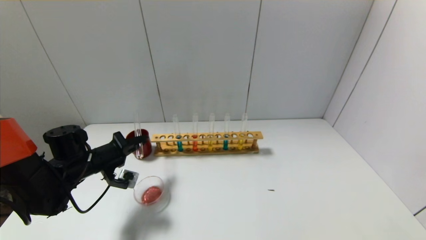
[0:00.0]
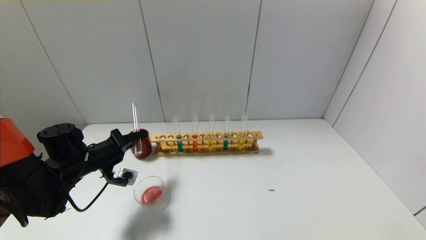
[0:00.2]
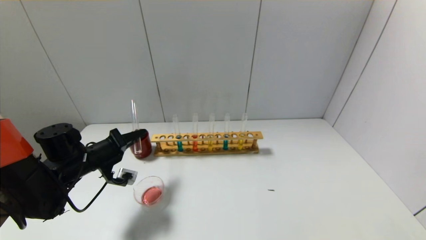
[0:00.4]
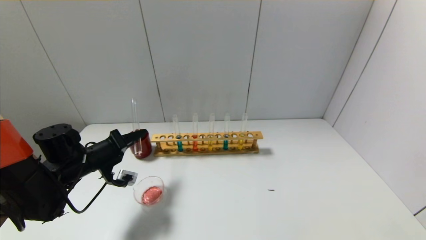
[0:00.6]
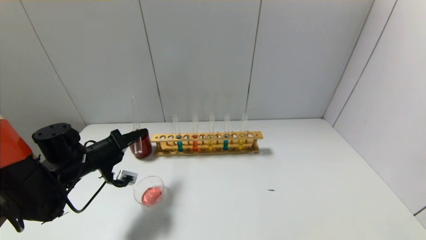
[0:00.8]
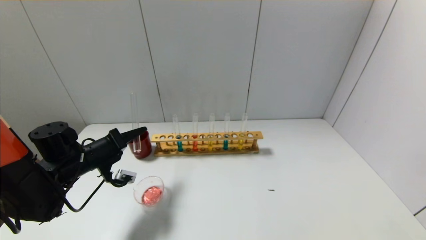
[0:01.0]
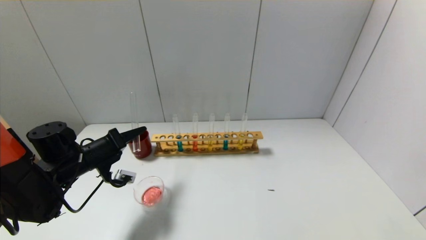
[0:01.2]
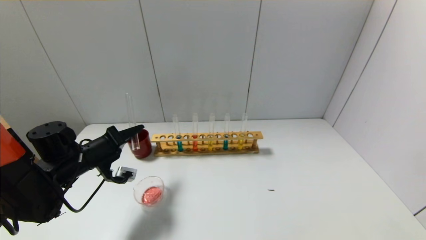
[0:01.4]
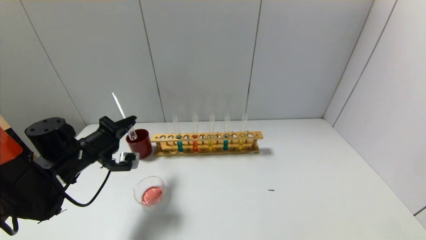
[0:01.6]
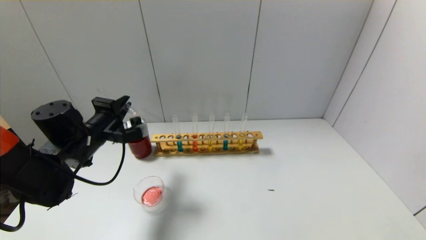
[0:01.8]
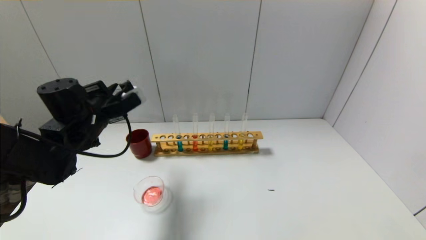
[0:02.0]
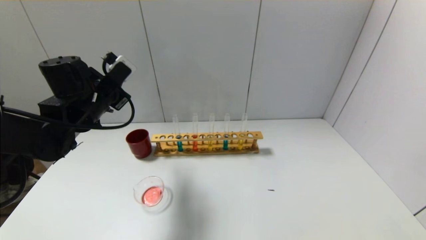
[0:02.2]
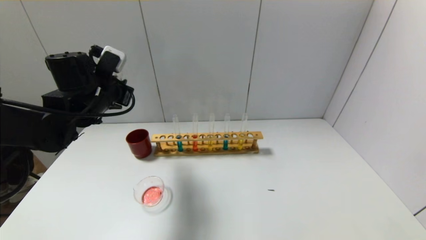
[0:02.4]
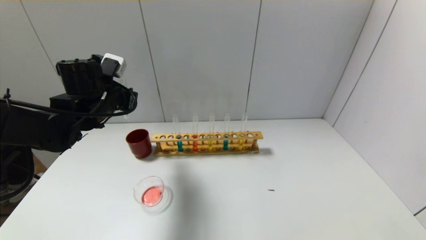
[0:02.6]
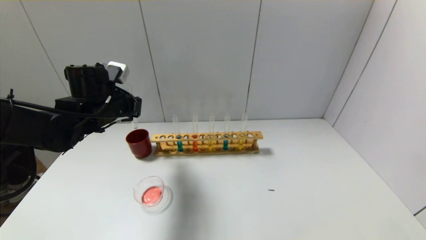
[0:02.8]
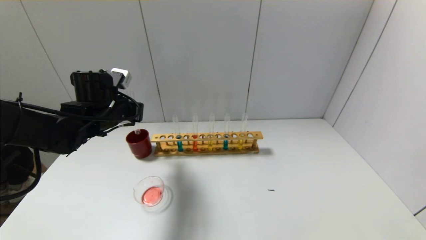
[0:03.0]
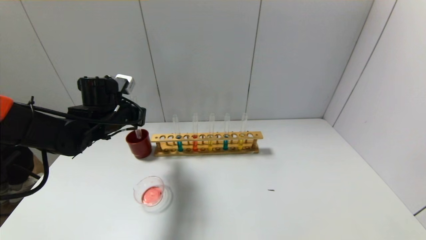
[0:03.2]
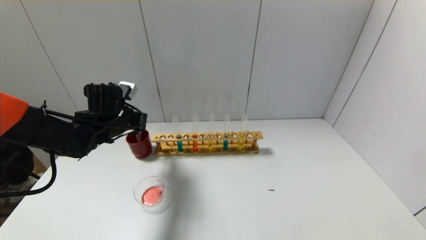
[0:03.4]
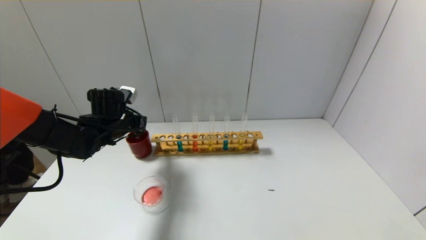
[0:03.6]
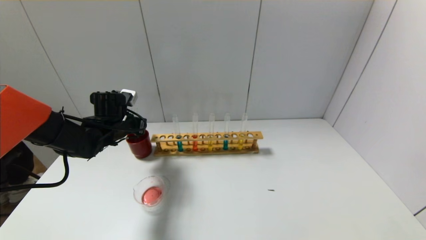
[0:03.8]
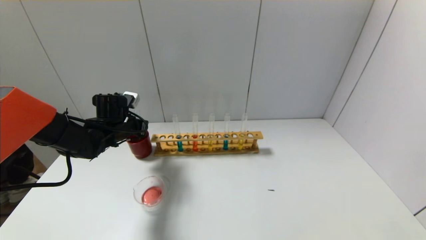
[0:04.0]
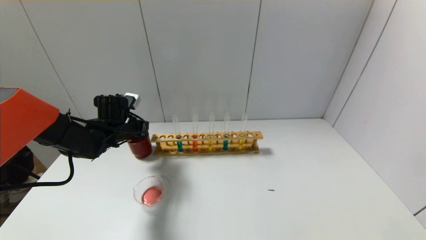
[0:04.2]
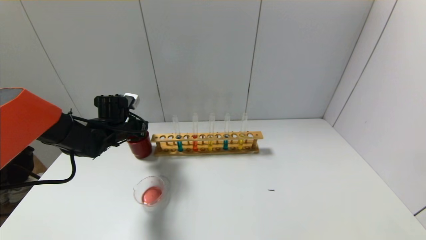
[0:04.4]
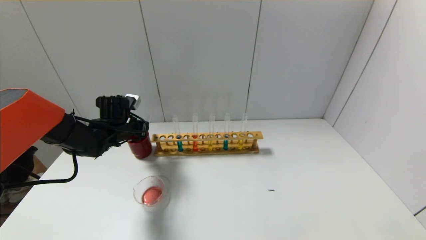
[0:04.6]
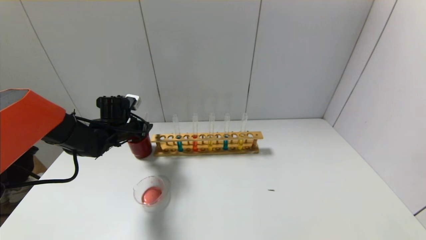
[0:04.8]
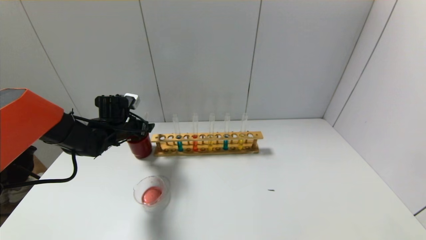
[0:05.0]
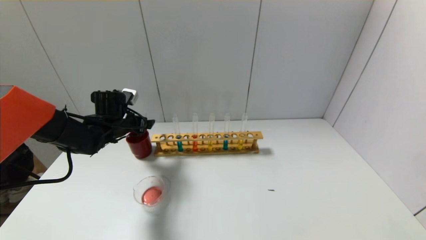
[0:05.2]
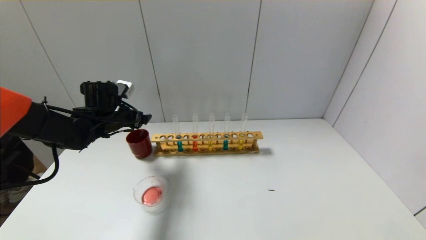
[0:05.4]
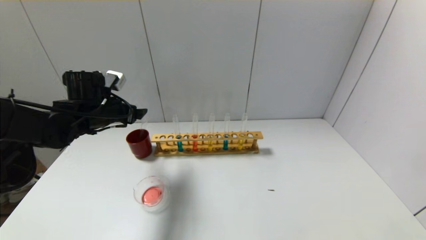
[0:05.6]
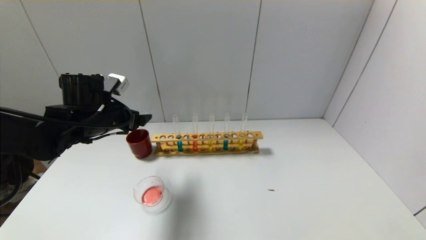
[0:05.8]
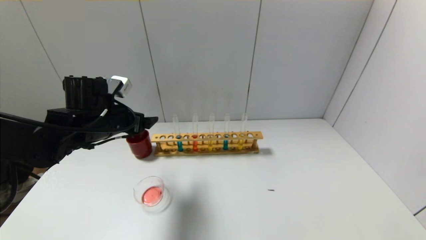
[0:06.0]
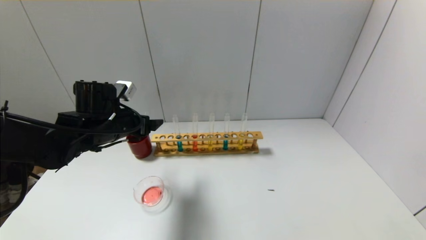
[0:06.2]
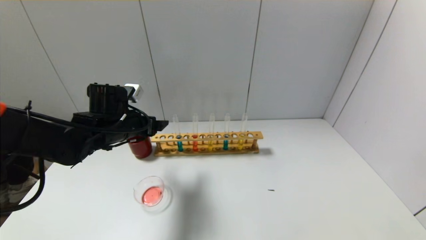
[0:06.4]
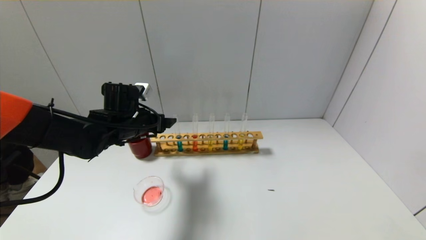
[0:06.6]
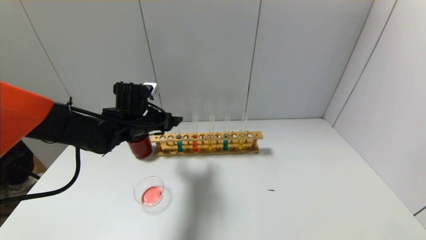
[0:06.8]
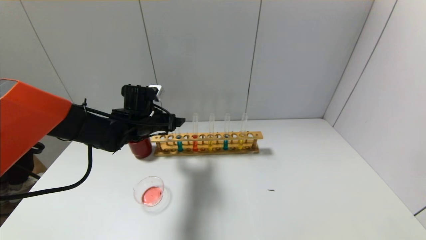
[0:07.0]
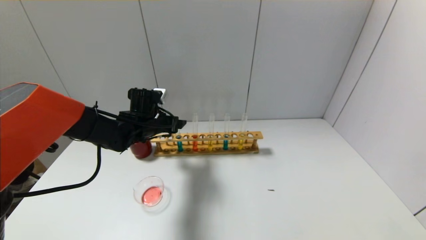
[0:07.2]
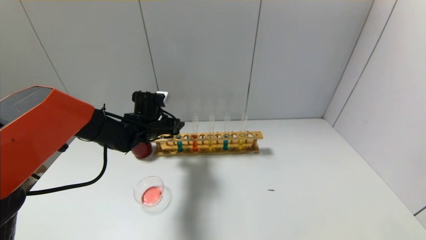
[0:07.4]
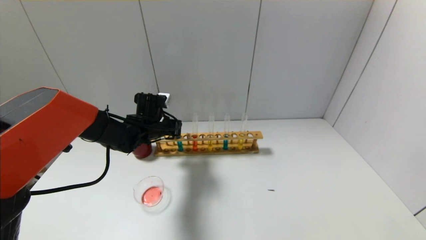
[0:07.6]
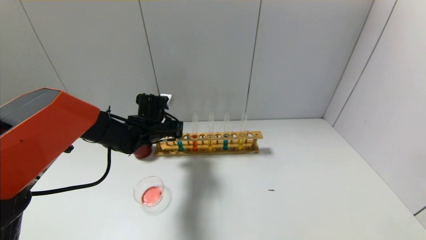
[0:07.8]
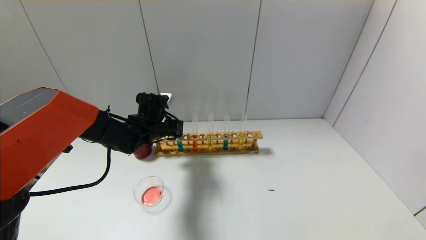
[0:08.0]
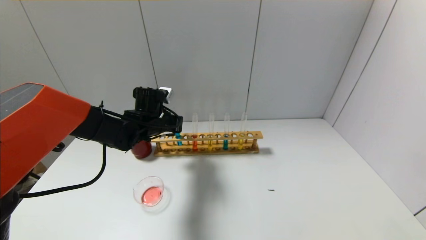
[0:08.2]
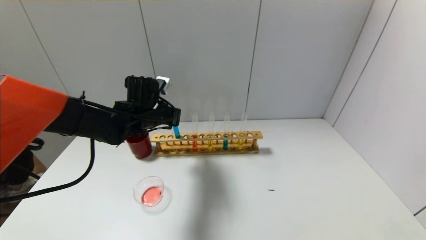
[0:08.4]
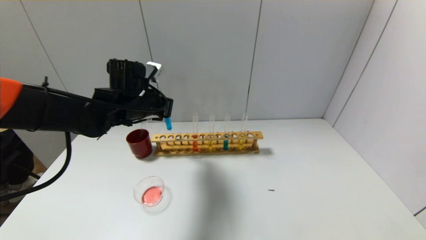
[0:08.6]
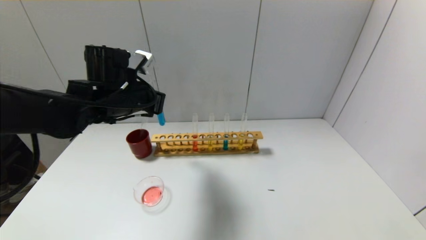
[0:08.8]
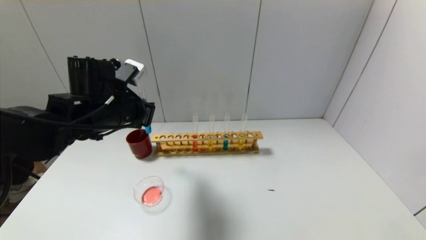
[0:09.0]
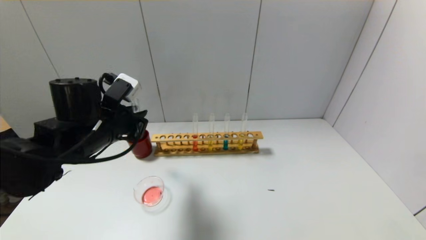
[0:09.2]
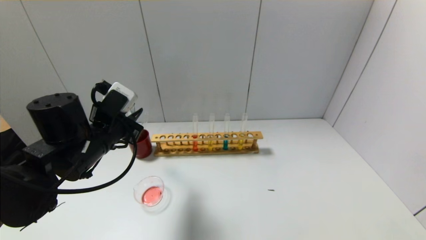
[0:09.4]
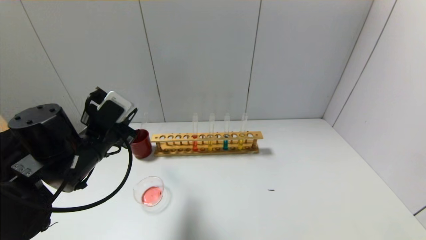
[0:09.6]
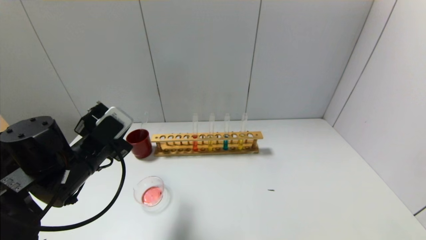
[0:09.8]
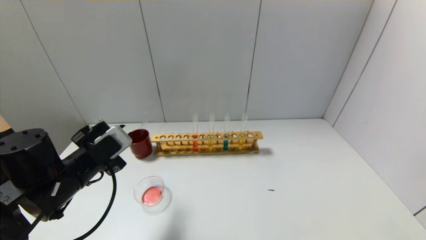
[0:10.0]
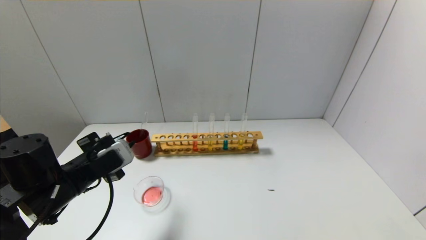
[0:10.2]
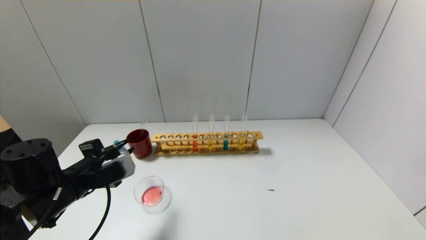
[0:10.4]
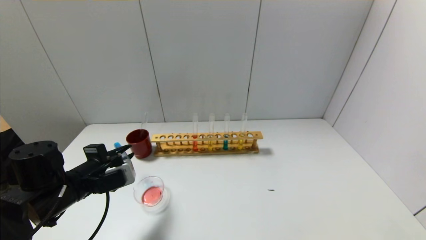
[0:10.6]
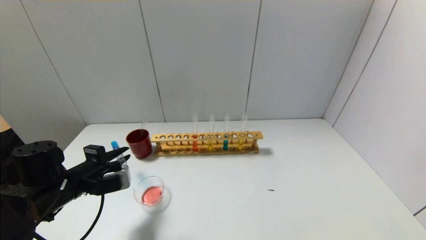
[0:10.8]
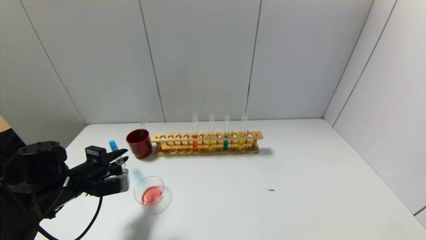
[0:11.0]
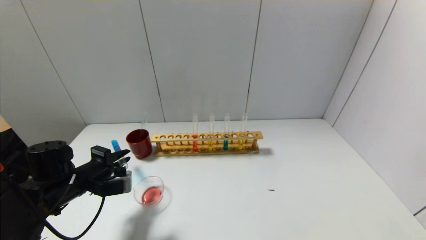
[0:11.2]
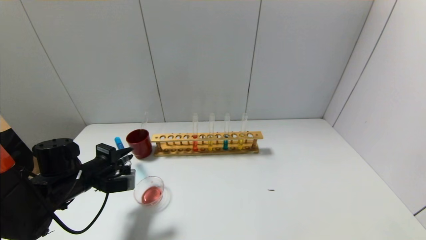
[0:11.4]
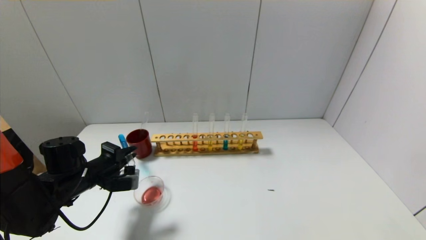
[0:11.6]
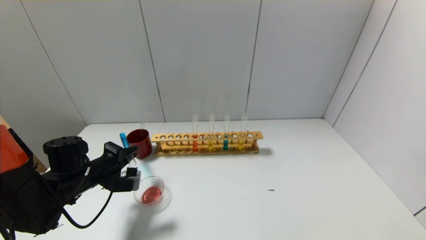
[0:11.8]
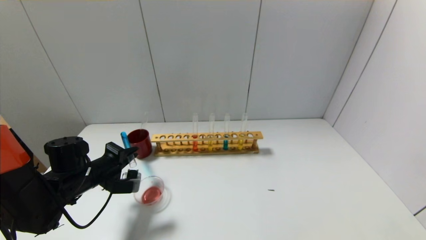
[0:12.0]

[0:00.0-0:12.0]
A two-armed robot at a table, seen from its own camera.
Step, 0:01.8 to 0:04.4: Place the test tube into the brown cup with the left gripper.
Step, 0:04.6 to 0:07.8: Grasp the blue reagent with the left gripper.
0:00.0 to 0:01.6: There are only small adjustments of the grippers.
0:01.6 to 0:03.0: The left gripper shifts some 10 cm upward and forward.
0:03.0 to 0:04.4: The left gripper shifts about 10 cm downward and forward.
0:04.4 to 0:06.0: The left gripper travels backward and upward by some 10 cm, and opens its fingers.
0:06.0 to 0:07.6: The left gripper goes roughly 15 cm forward, downward and to the right, and closes up.
0:07.6 to 0:09.0: The left gripper is displaced backward and upward by roughly 15 cm.
0:09.0 to 0:10.4: The left gripper goes about 15 cm downward, backward and to the left.
0:10.4 to 0:12.0: The left gripper is displaced forward and downward by about 10 cm.

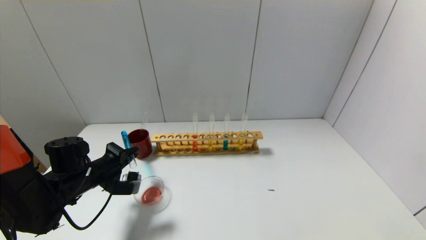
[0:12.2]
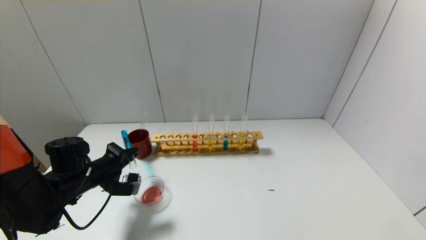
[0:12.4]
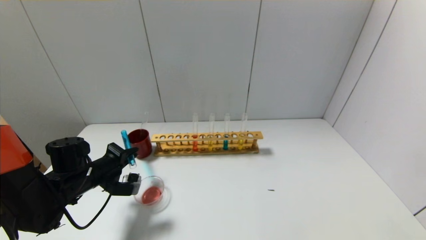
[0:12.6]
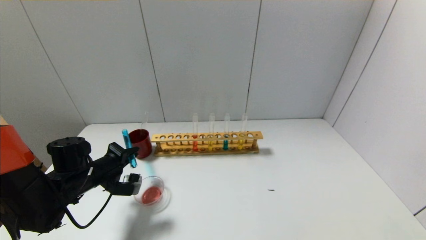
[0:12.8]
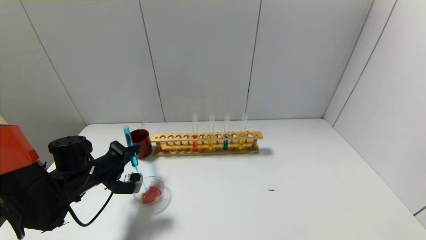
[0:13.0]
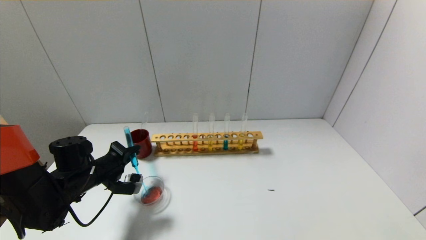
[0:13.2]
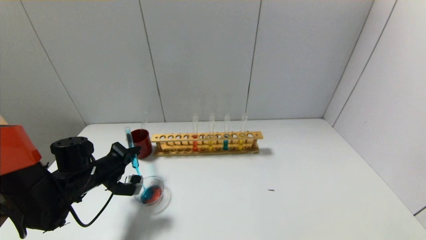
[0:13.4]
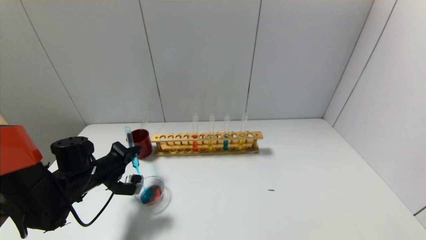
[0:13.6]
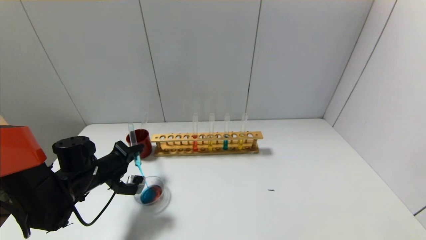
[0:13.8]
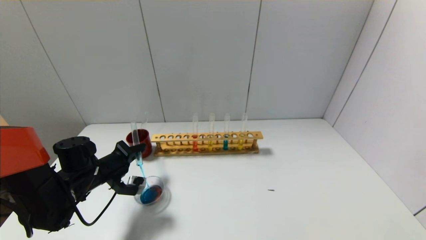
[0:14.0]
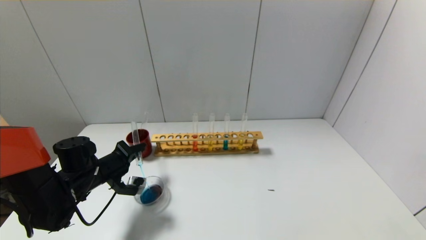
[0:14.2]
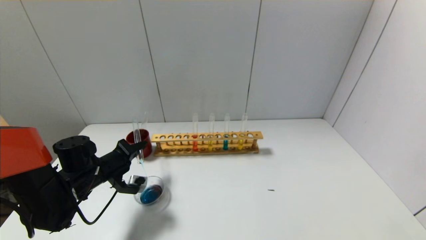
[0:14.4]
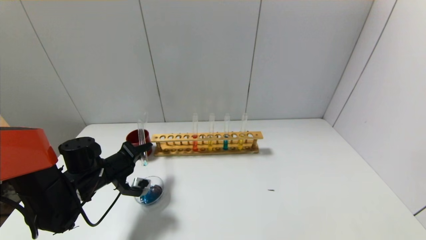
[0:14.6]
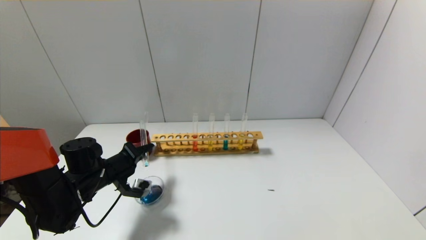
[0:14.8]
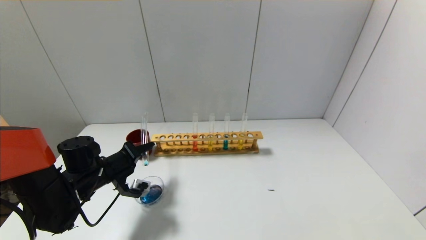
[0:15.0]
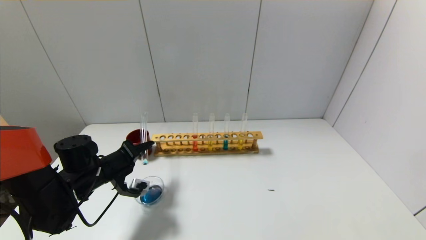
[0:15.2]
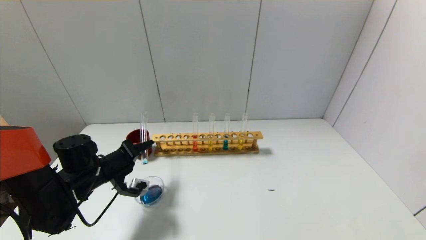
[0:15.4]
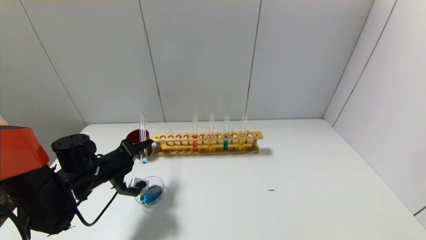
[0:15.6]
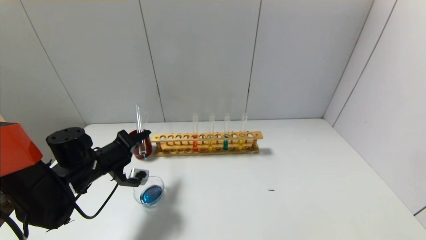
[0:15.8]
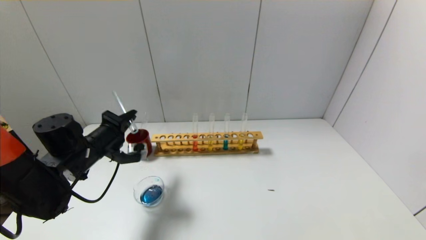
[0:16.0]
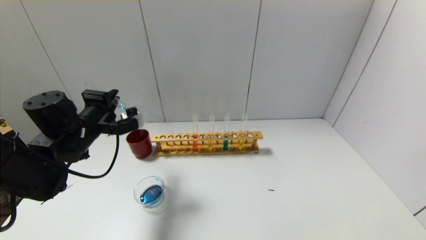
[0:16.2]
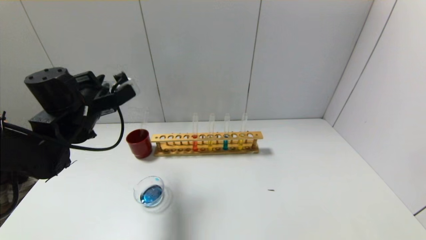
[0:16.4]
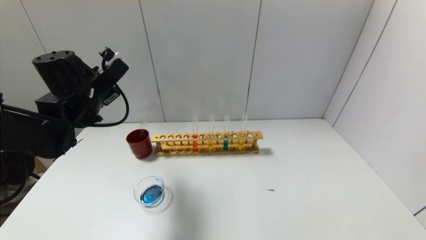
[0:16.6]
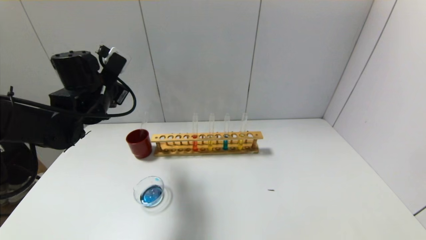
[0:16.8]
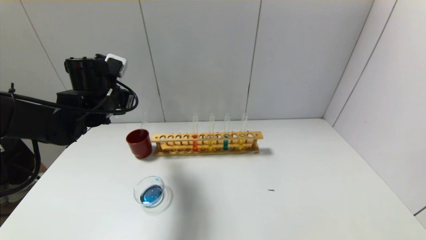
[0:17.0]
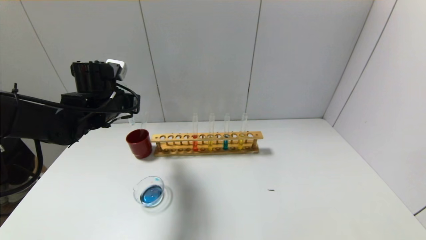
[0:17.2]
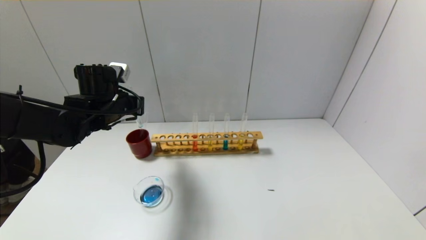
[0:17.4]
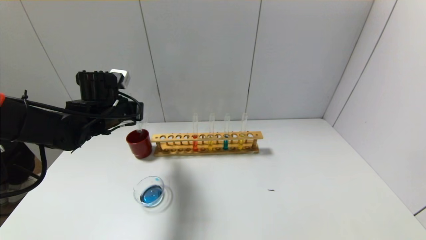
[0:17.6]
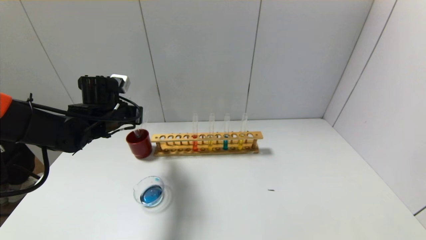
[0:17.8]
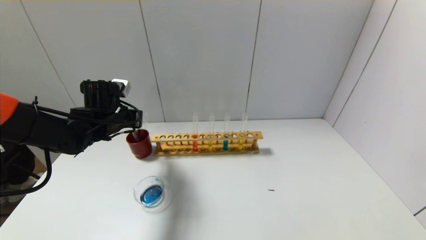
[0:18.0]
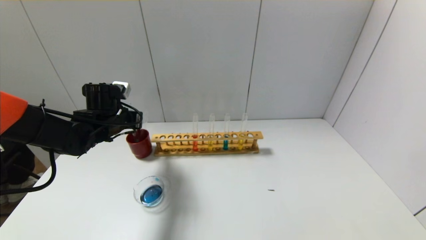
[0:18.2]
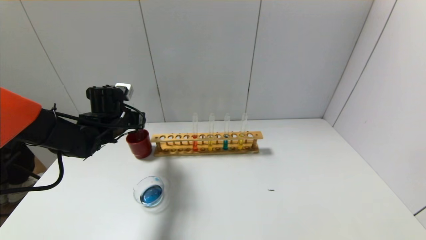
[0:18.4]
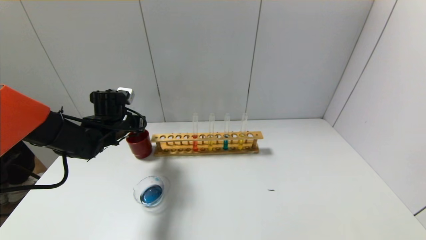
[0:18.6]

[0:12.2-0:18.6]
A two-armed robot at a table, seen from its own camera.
Step, 0:12.2 to 0:16.0: Pour the blue reagent into the graduated cylinder with the left gripper.
0:12.2 to 0:13.8: The grippers move only a little.
0:13.8 to 0:15.4: There are only small adjustments of the grippers.
0:15.4 to 0:17.0: The left gripper goes approximately 15 cm upward and forward.
0:17.0 to 0:18.6: The left gripper heads downward, covering approximately 10 cm.
